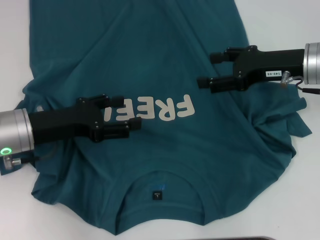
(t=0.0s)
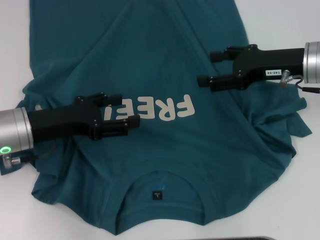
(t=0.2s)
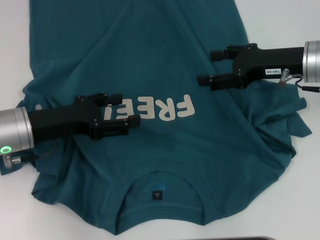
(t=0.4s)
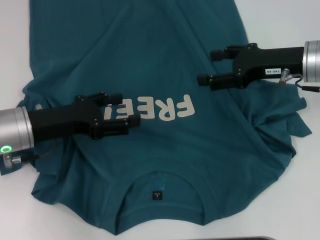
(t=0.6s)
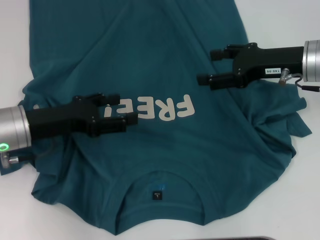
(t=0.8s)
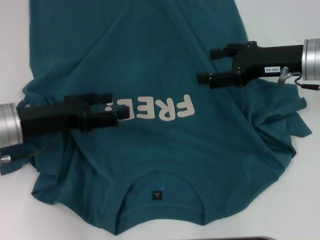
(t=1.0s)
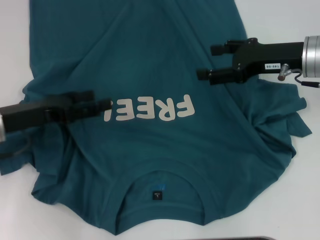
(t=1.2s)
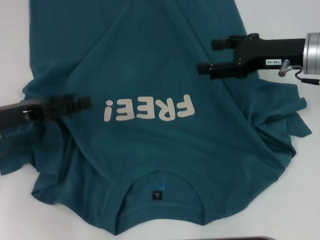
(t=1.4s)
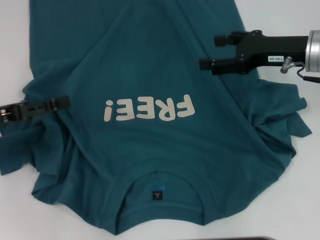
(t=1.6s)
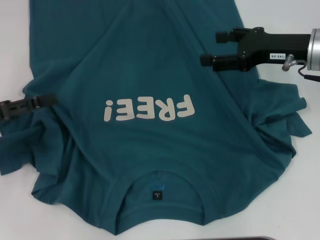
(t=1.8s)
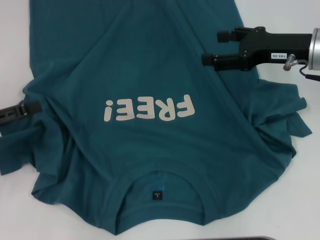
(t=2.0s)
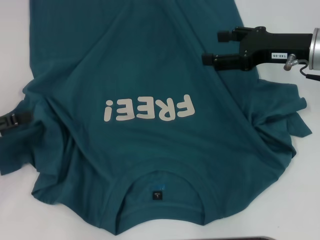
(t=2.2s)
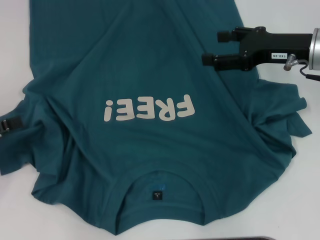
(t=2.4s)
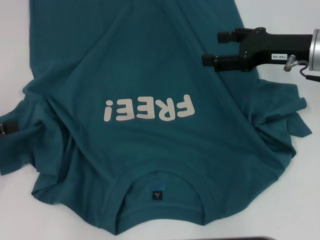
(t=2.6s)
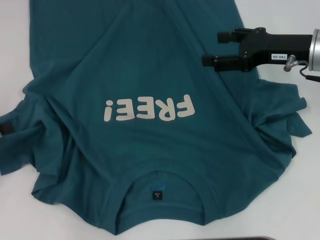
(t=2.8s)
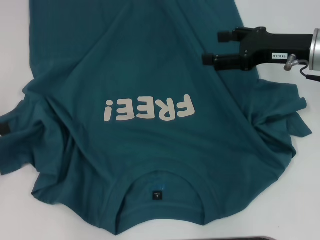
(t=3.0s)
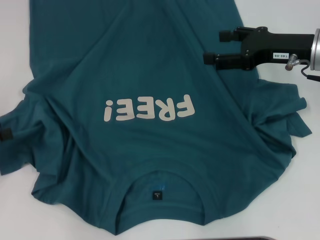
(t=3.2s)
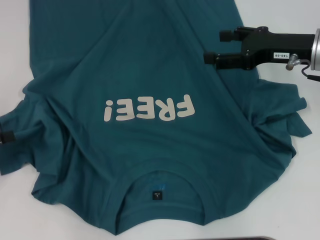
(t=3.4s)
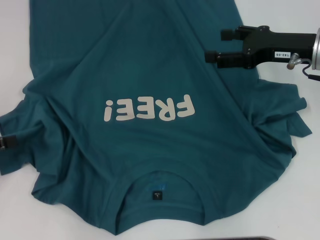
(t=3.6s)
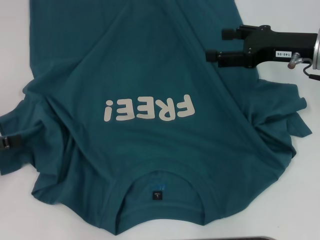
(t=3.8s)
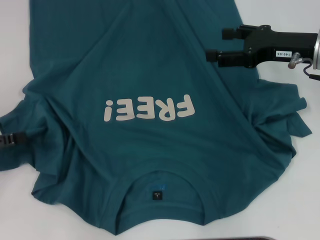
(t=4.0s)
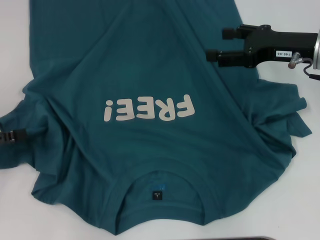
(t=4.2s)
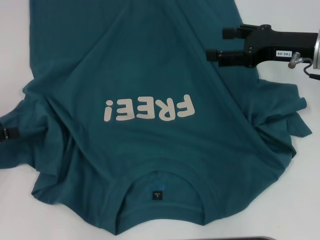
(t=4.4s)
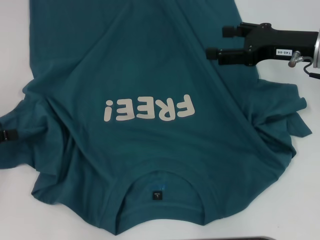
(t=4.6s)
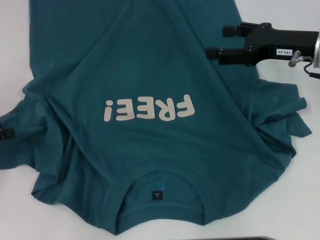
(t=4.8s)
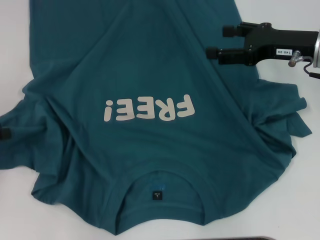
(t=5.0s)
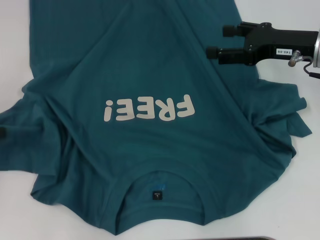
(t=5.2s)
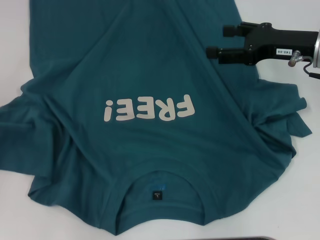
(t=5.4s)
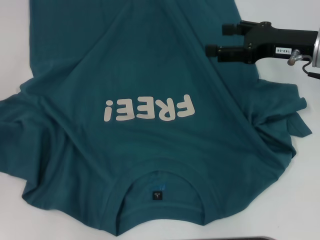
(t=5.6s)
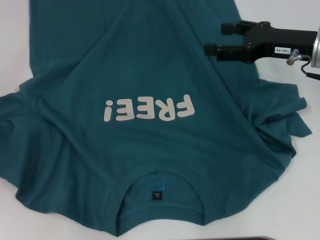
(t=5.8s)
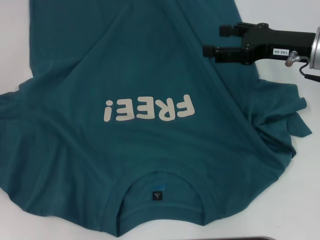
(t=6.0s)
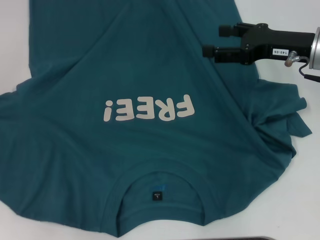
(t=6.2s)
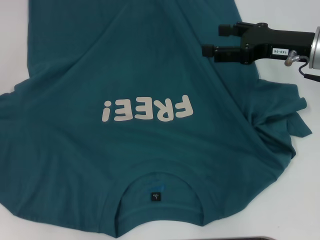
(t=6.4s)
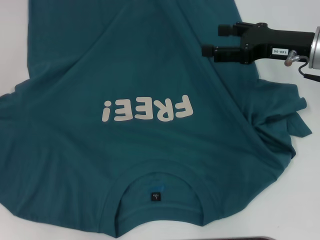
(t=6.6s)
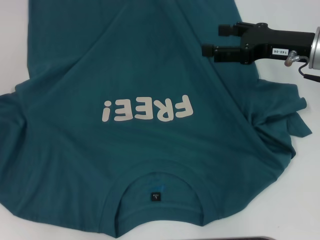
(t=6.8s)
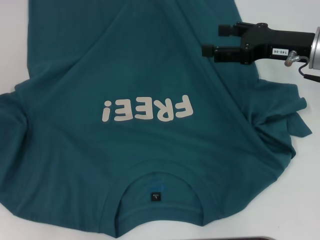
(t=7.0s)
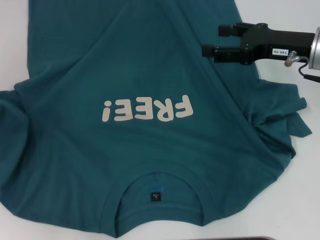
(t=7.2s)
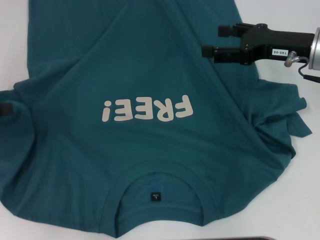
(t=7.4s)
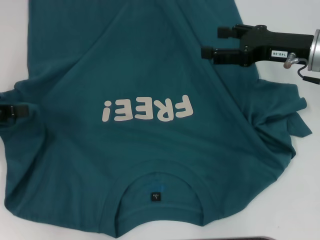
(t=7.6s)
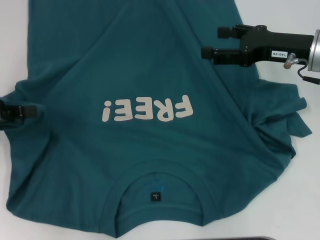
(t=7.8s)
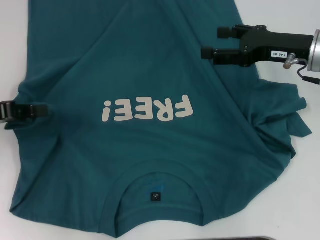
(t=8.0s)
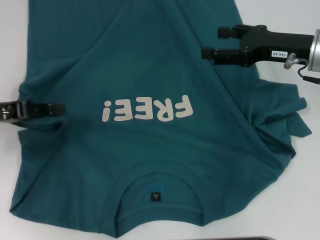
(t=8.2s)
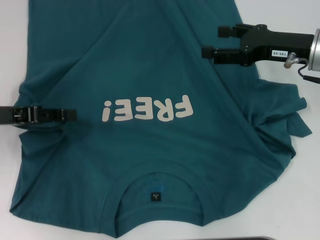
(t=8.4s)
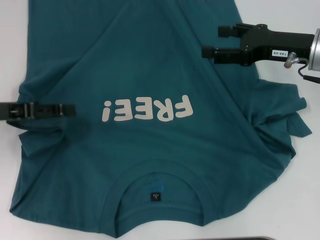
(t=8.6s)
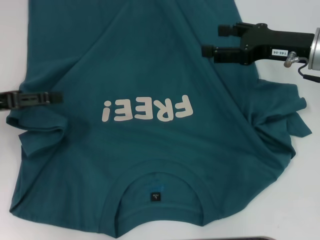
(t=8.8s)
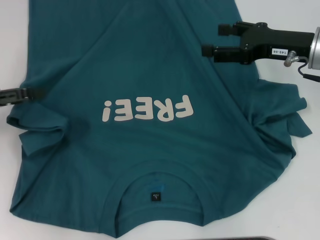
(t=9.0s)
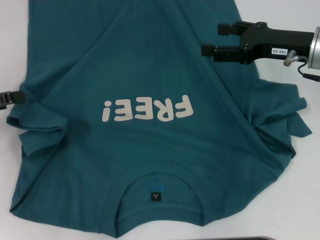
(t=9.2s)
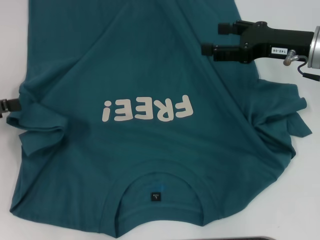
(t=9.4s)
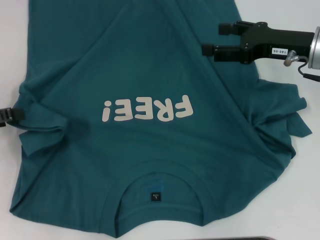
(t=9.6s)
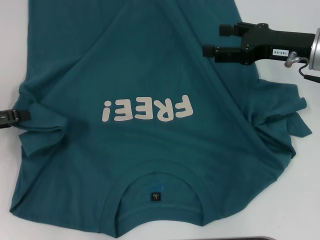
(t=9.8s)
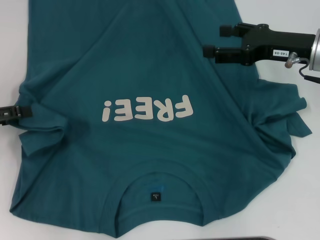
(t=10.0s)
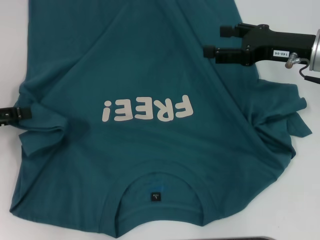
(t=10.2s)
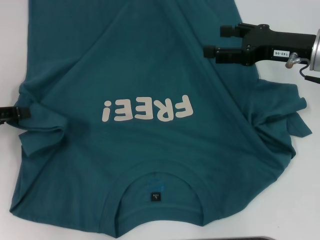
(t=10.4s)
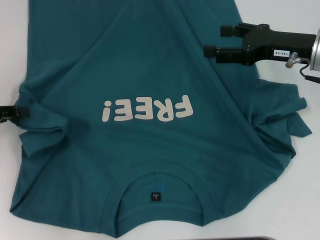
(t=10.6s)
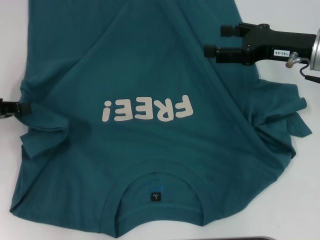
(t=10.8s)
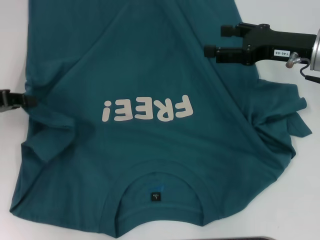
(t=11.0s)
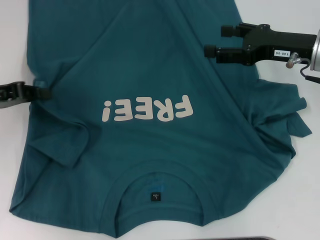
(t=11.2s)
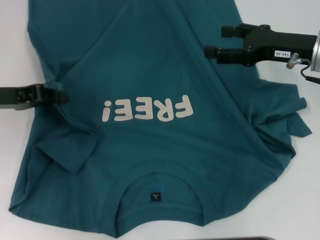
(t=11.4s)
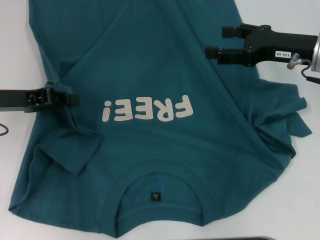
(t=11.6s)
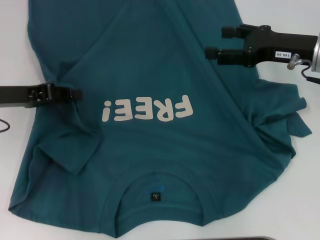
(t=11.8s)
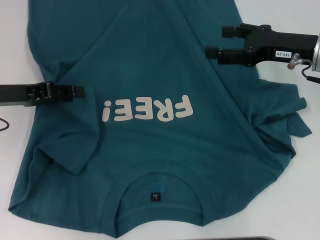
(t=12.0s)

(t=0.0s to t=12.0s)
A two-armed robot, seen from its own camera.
t=0.0s - t=1.6s: The left gripper goes roughly 10 cm to the left.
t=1.6s - t=3.0s: The left gripper travels to the left by approximately 5 cm.
t=3.0s - t=4.4s: The grippers stay close to where they were, moving slightly.
t=4.4s - t=6.0s: The left gripper moves some 5 cm, and closes up.
t=6.0s - t=7.6s: The left gripper moves to the right, approximately 5 cm.
t=7.6s - t=9.0s: The left gripper opens up.
t=9.0s - t=10.4s: The grippers make only small movements.
t=10.4s - t=12.0s: The left gripper heads to the right, covering some 5 cm, and closes up.

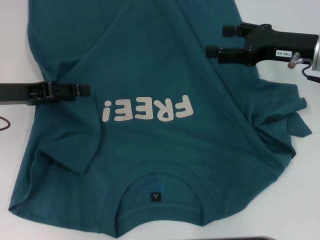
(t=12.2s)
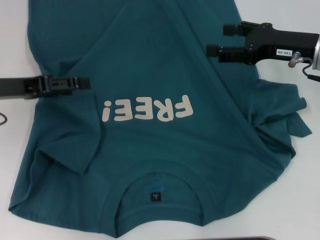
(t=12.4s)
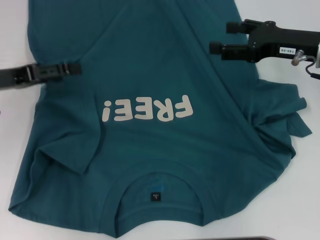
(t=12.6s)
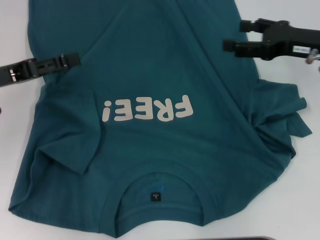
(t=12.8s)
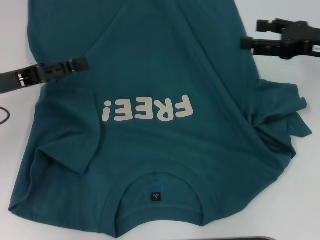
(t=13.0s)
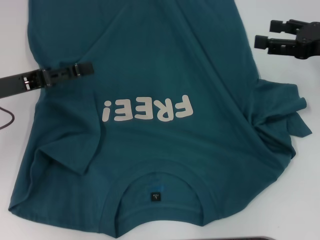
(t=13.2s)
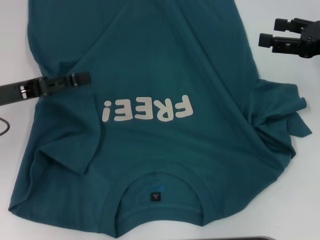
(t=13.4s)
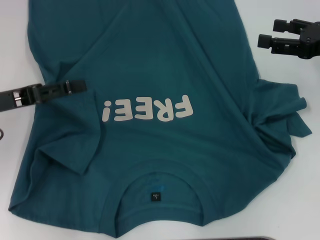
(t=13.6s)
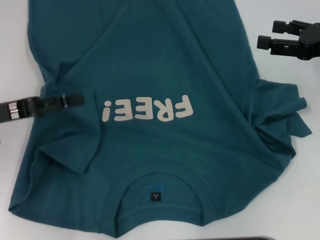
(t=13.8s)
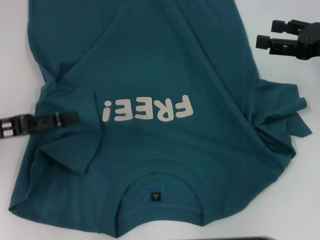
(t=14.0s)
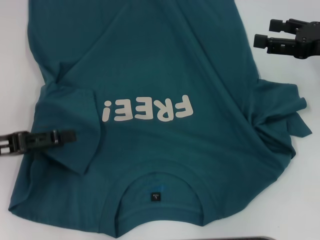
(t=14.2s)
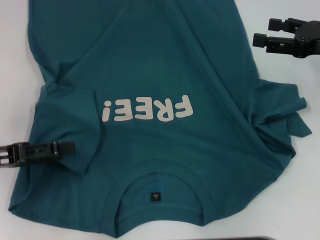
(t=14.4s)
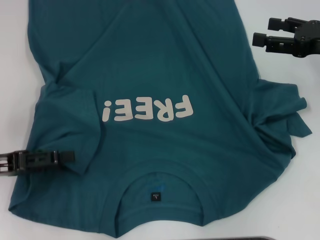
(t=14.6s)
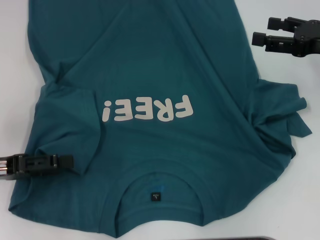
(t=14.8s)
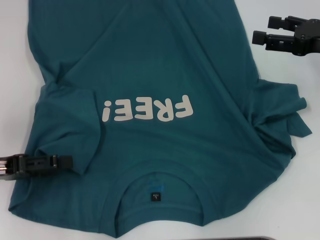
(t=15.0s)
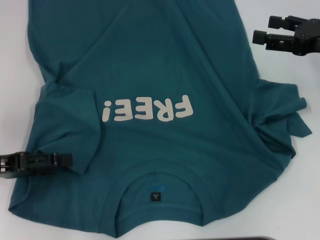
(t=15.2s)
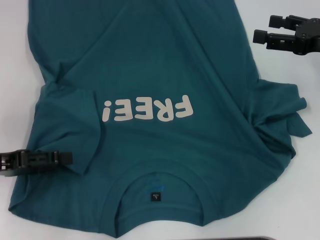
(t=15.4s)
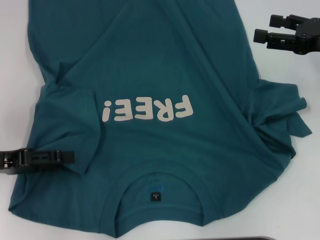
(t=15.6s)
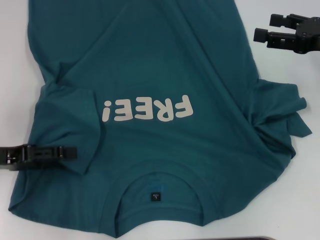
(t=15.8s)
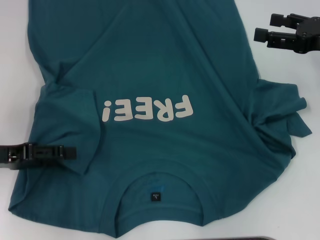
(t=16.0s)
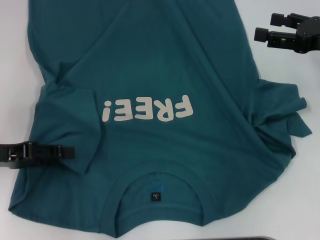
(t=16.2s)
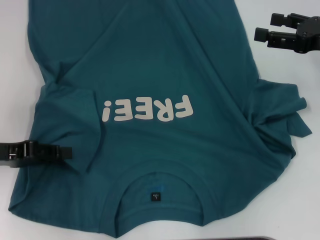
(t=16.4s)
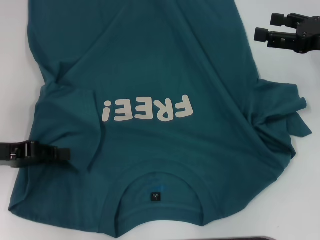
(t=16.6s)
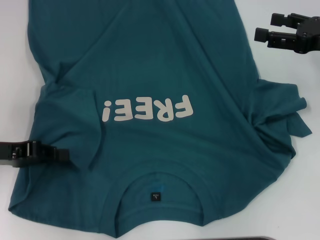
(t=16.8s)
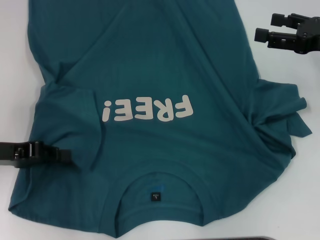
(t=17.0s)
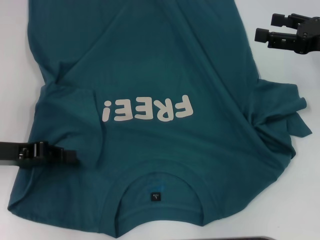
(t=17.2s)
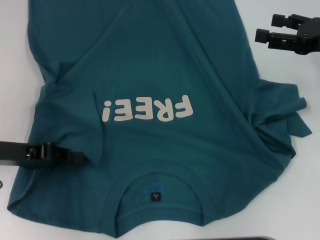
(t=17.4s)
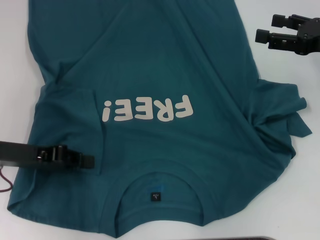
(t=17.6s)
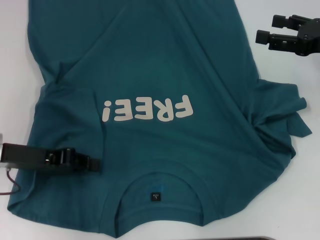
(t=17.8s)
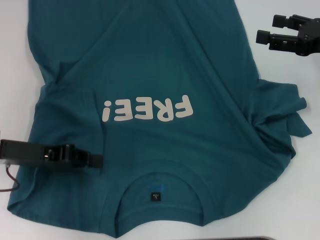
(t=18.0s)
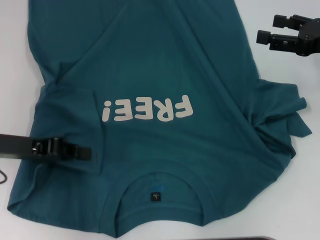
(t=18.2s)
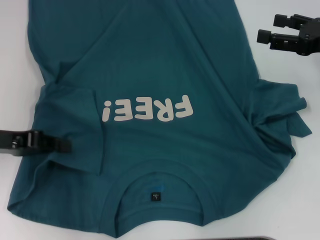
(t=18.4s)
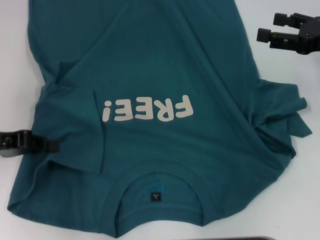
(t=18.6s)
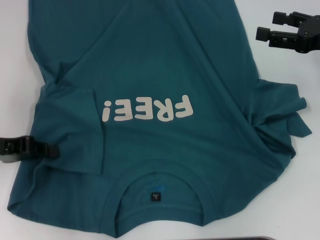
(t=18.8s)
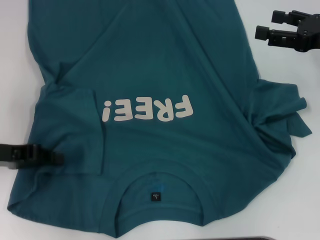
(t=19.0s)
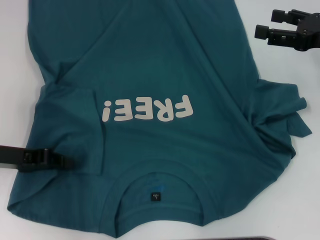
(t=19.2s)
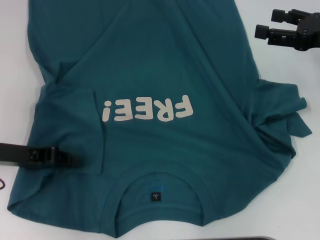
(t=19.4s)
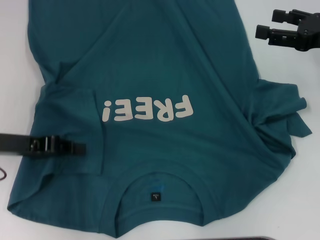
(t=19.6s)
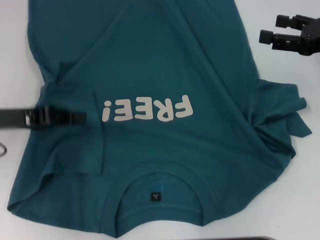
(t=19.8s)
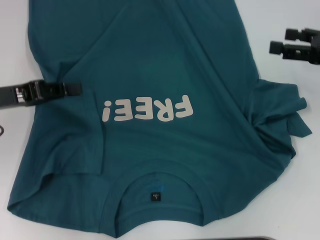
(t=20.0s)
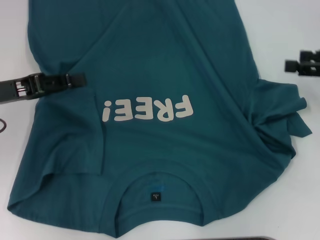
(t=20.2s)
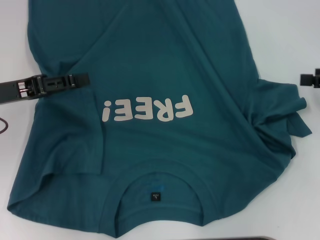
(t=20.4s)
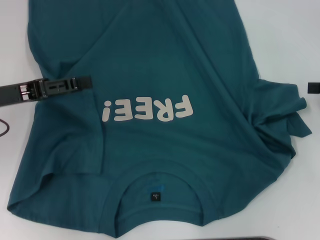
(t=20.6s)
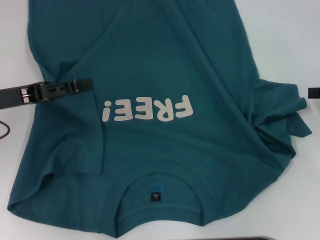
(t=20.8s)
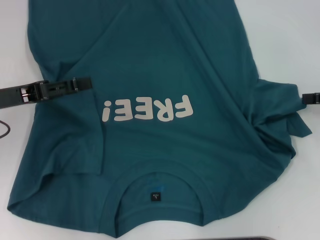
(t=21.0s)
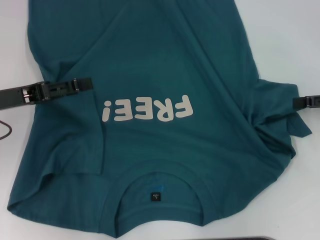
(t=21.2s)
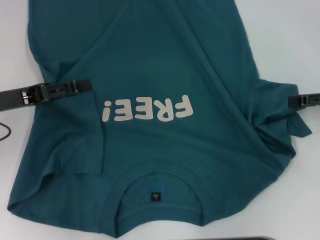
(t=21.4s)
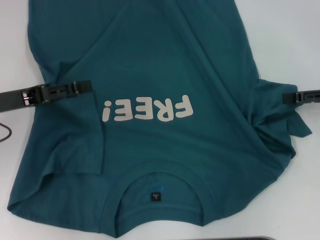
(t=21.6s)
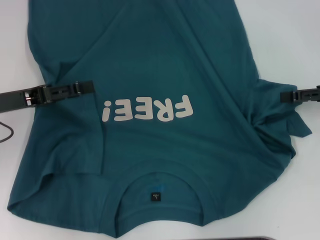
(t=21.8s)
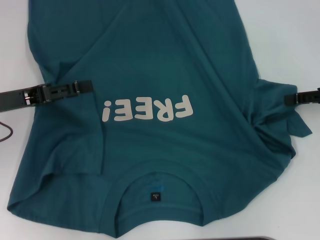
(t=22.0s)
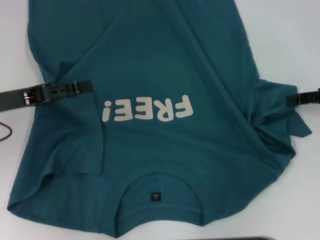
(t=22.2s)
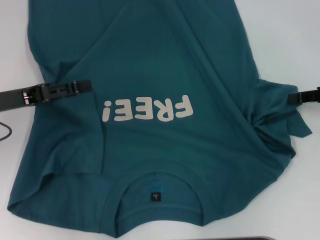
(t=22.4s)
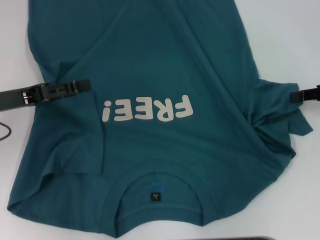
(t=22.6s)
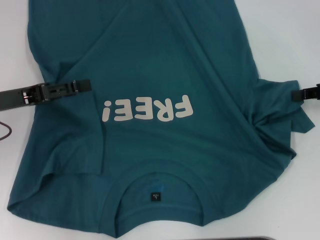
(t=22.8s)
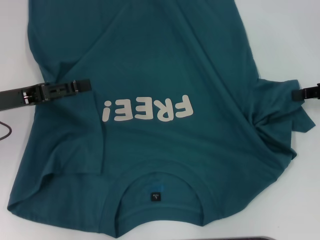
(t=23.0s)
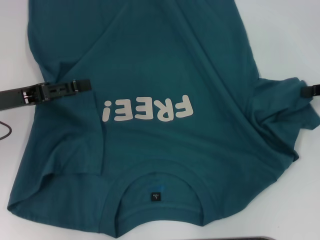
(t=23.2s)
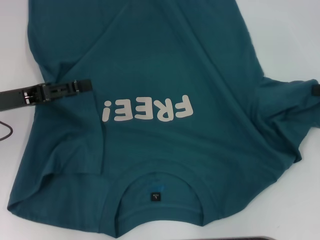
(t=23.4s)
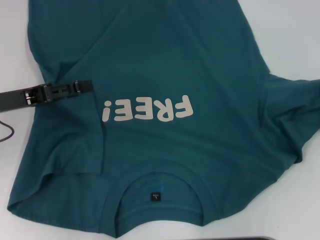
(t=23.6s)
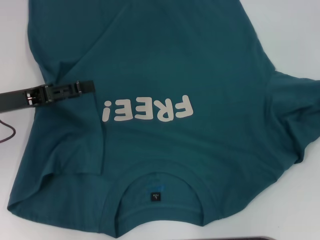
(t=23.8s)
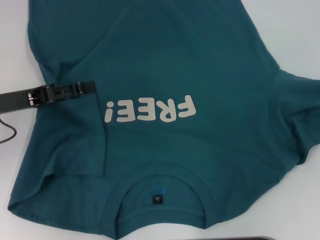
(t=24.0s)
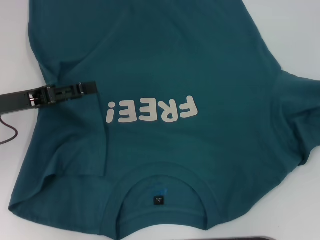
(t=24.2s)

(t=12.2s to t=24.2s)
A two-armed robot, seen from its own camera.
t=12.2s - t=13.8s: The left gripper ends up roughly 5 cm from where it was, and opens up, while the right gripper moves to the right, some 5 cm.
t=15.2s - t=16.6s: The left gripper closes.
t=16.6s - t=19.8s: The grippers make only small movements.
t=19.8s - t=21.2s: The right gripper changes place by roughly 5 cm; the left gripper opens.
t=21.2s - t=22.6s: The right gripper closes up.
t=22.6s - t=24.2s: The right gripper goes approximately 5 cm to the right, and closes its fingers.
